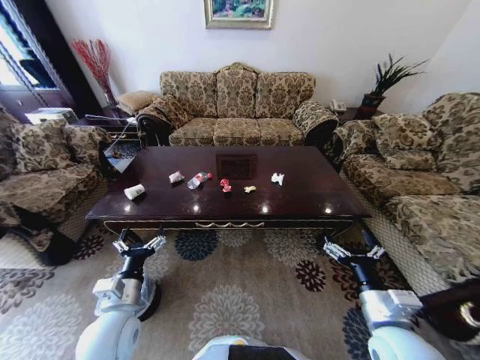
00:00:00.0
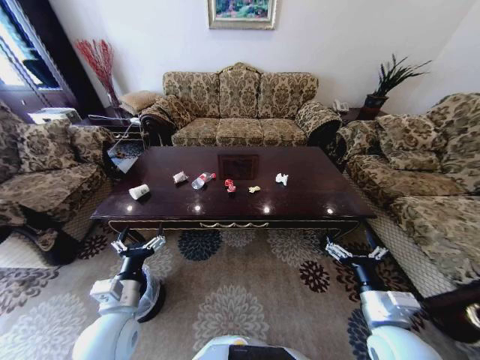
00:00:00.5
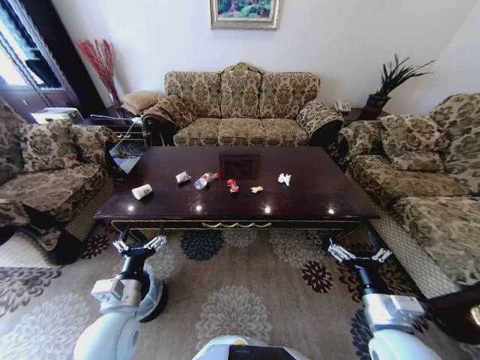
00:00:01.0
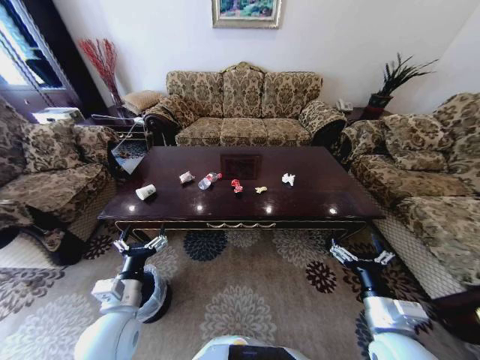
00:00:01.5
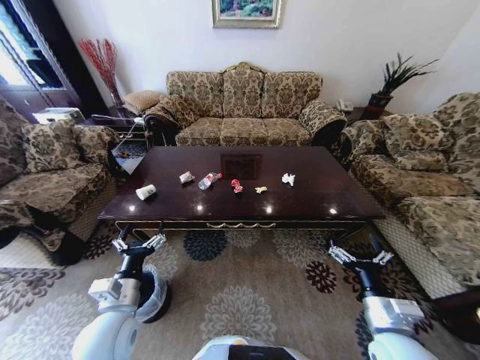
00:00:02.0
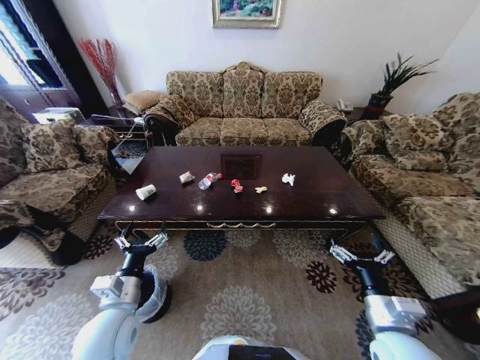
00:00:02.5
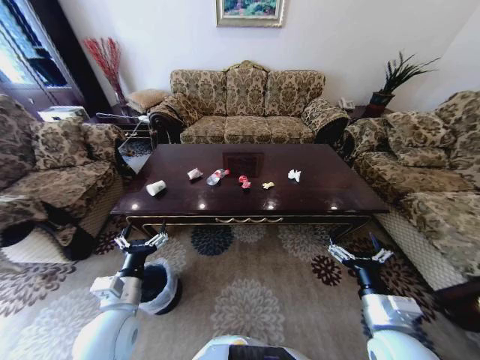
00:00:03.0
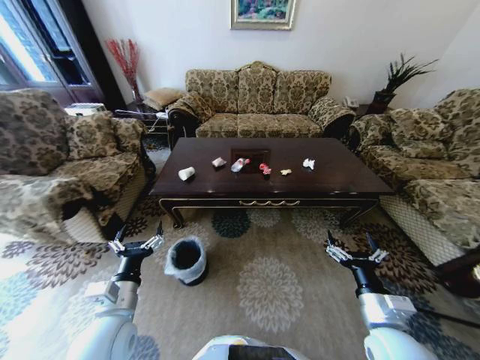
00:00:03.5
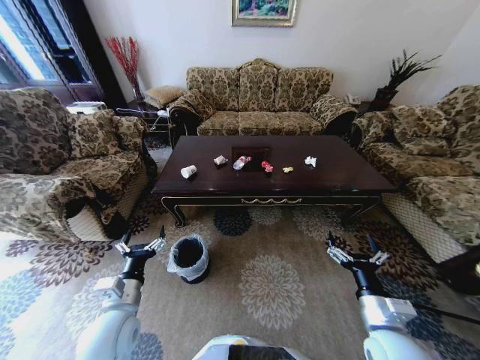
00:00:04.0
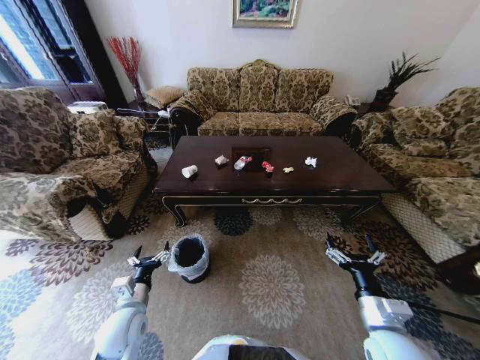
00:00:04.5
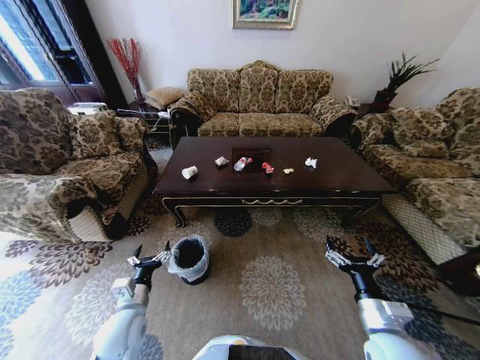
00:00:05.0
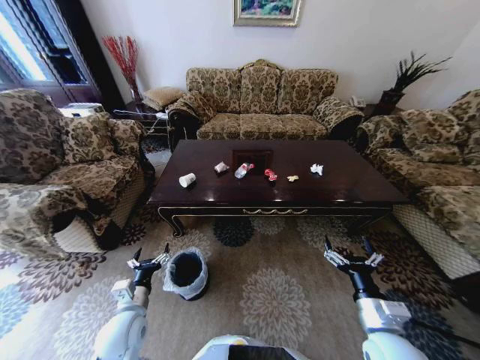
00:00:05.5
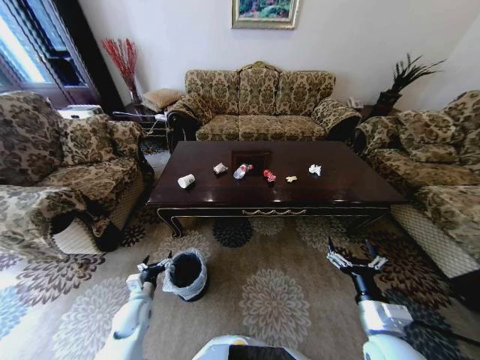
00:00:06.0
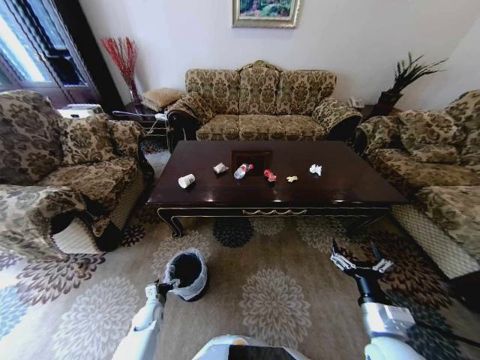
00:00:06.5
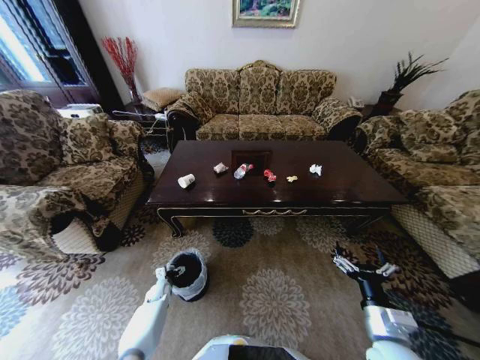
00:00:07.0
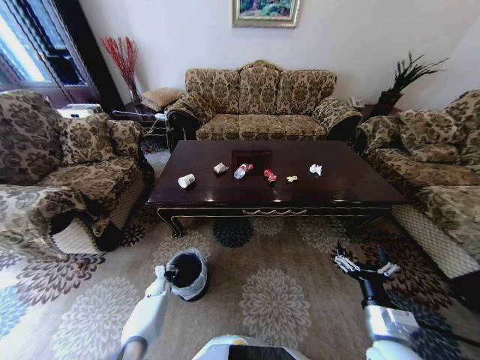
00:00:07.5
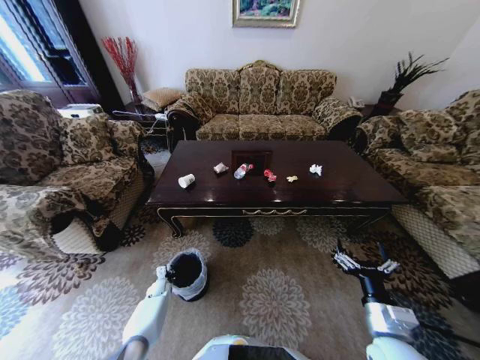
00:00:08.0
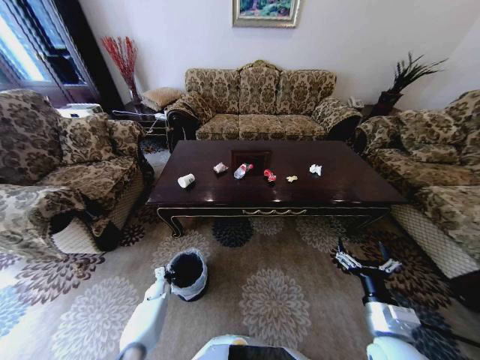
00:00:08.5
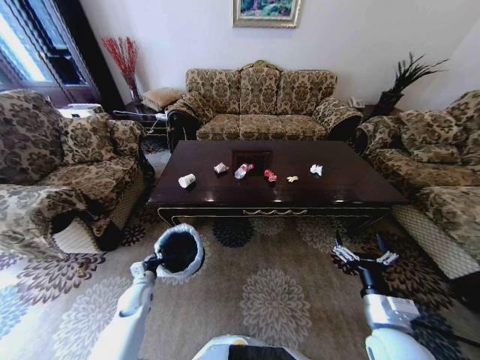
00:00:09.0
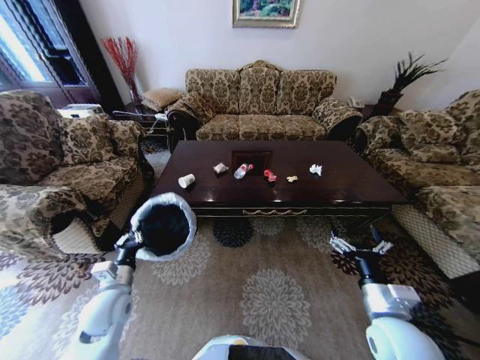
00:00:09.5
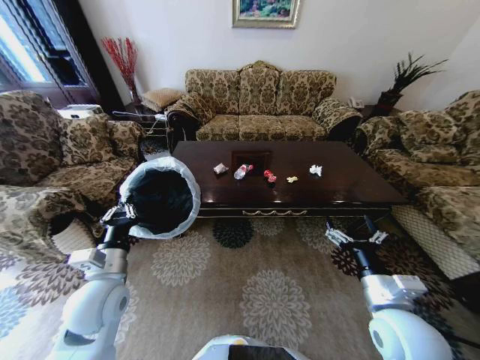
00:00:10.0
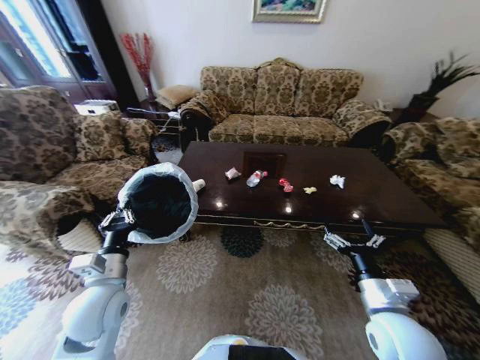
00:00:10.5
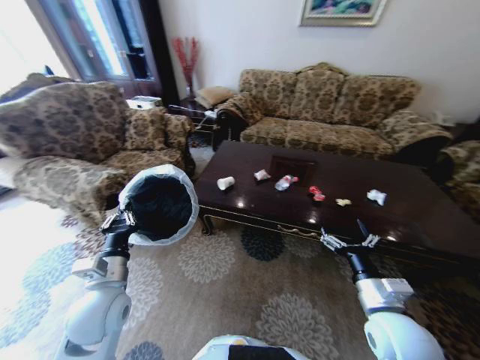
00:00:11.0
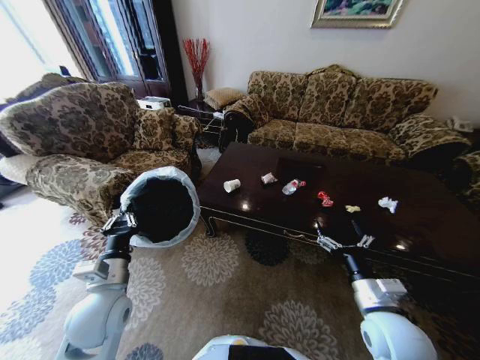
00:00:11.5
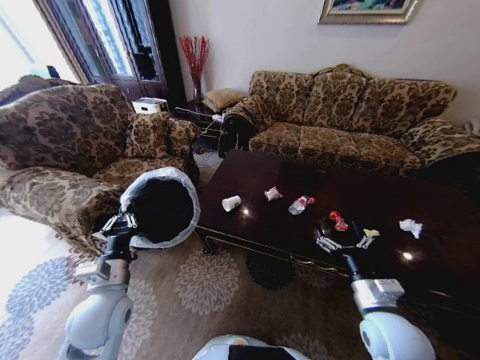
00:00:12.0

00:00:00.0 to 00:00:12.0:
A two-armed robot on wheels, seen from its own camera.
Task of the whole recording: Move to the front of the table and place the trash on the table into the trash bin.
00:00:04.0 to 00:00:06.0: The left gripper shifts some 15 cm downward.
00:00:06.0 to 00:00:08.0: The left gripper heads downward and forward, covering about 20 cm, and closes up.
00:00:08.0 to 00:00:10.0: The right gripper moves upward, approximately 5 cm; the left gripper shifts approximately 40 cm upward.

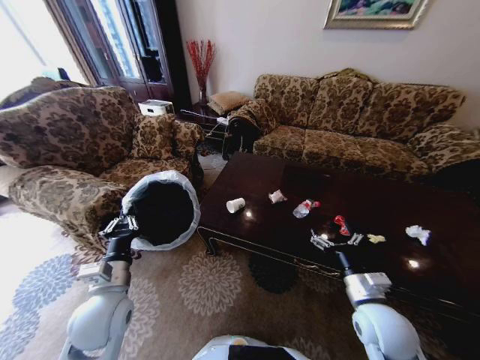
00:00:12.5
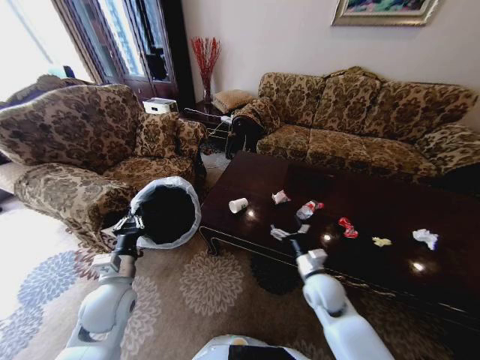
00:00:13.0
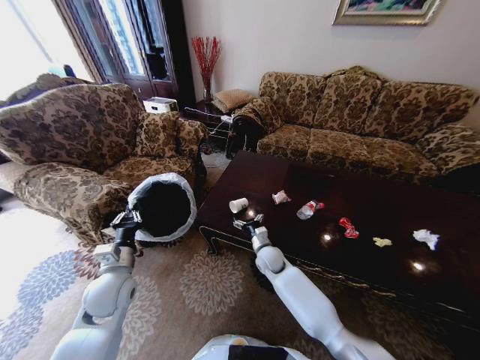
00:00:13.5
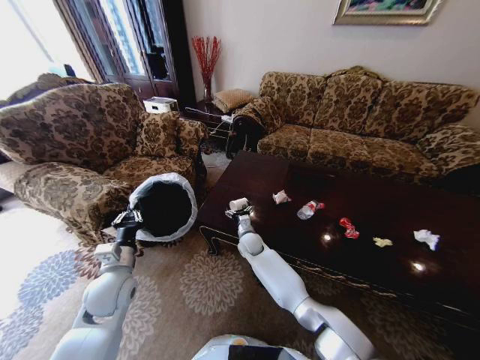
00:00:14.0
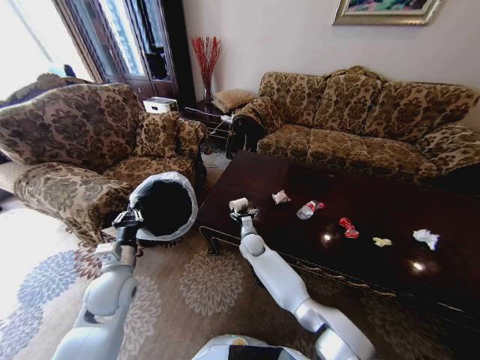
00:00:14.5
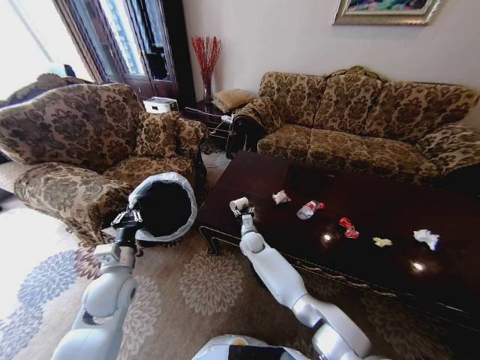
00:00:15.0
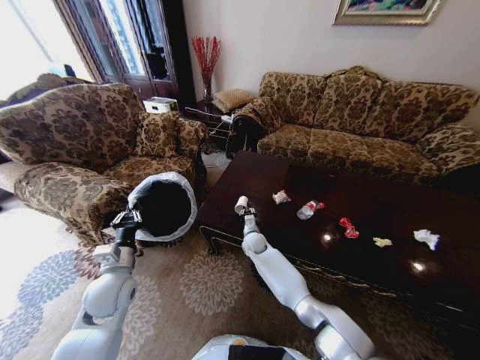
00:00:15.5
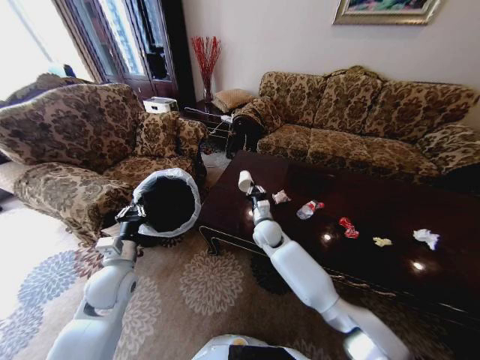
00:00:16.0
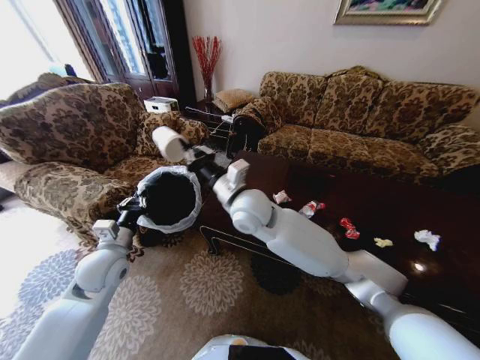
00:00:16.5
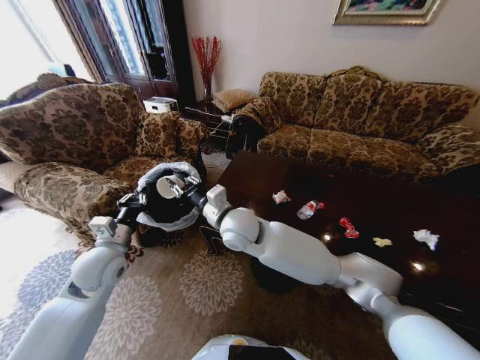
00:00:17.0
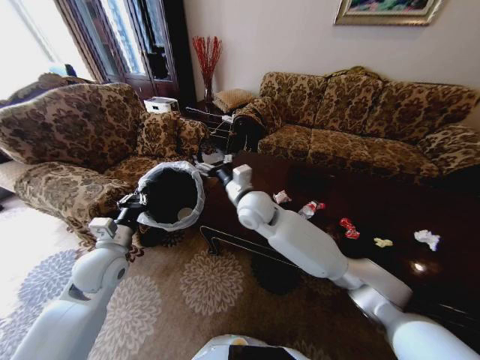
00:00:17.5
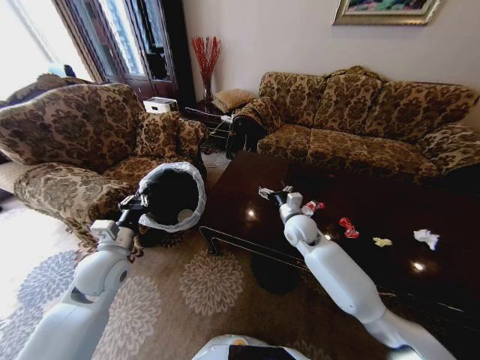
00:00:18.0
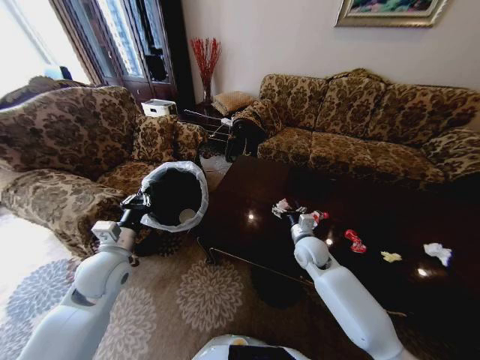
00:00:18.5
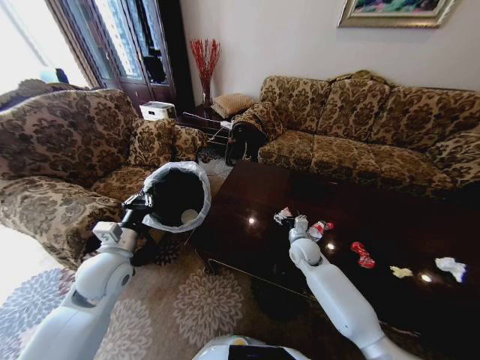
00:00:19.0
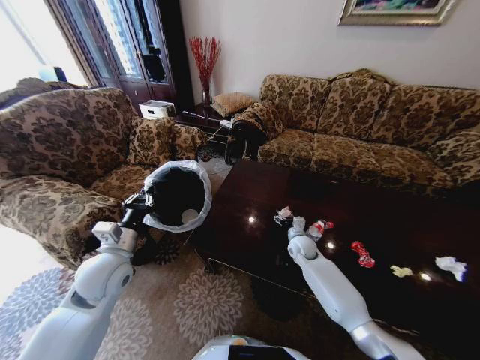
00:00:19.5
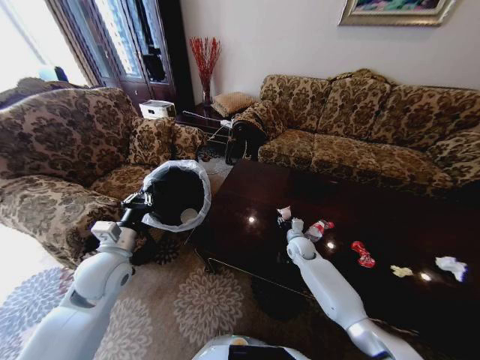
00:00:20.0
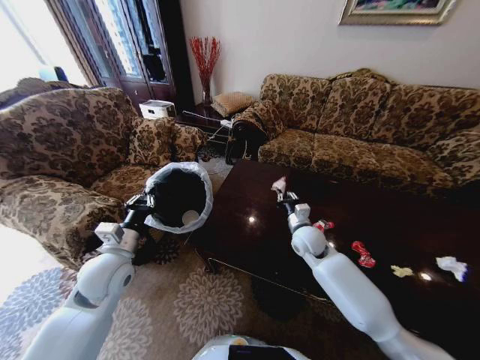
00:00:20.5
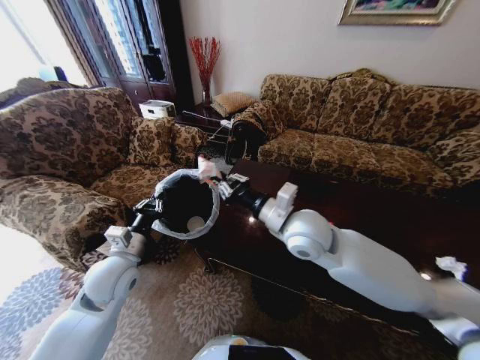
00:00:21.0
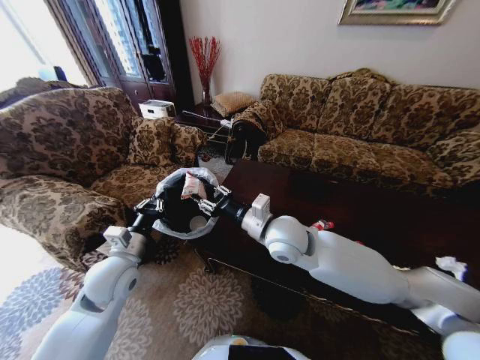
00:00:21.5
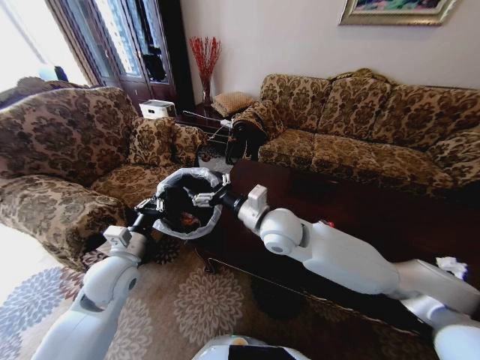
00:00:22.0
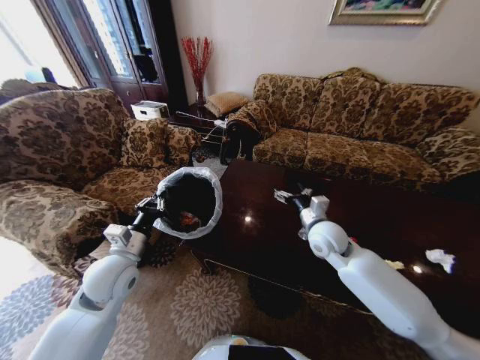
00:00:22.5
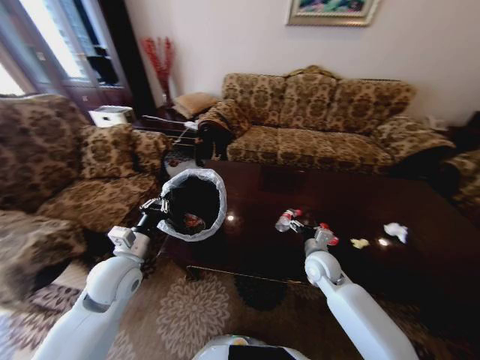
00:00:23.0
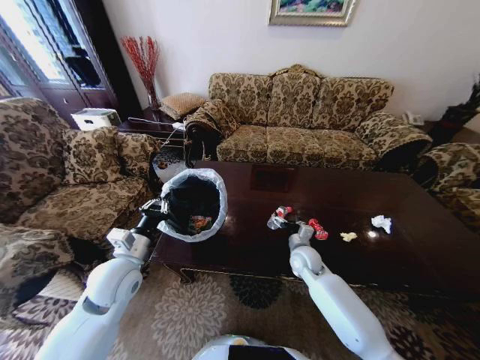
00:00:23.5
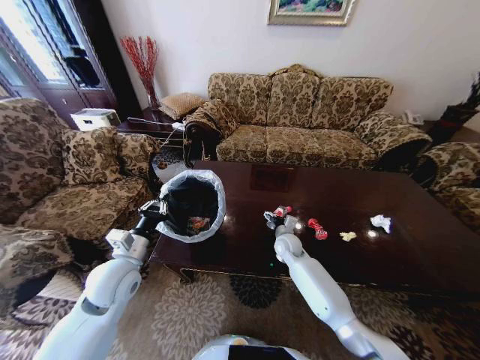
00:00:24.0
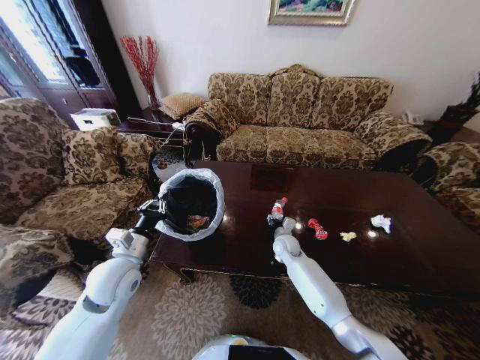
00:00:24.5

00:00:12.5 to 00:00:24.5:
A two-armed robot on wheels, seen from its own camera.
Task of the whole recording: Move to the front of the table and place the trash on the table into the trash bin.
00:00:12.5 to 00:00:14.5: The left gripper shifts some 5 cm forward, while the right gripper heads forward, to the left and downward, covering roughly 40 cm.
00:00:14.5 to 00:00:16.5: The left gripper moves some 5 cm. The right gripper travels upward by about 30 cm, and closes its fingers.
00:00:16.5 to 00:00:18.5: The right gripper heads to the right and downward, covering about 30 cm, and opens up.
00:00:18.5 to 00:00:20.5: The right gripper reaches roughly 10 cm downward, then returns, and closes.
00:00:20.5 to 00:00:22.5: The right gripper travels to the left and back again, some 10 cm each way, and opens up.
00:00:22.5 to 00:00:24.5: The right gripper shifts some 20 cm downward and forward, and closes its fingers.

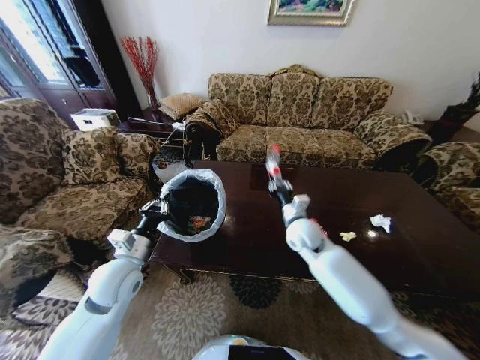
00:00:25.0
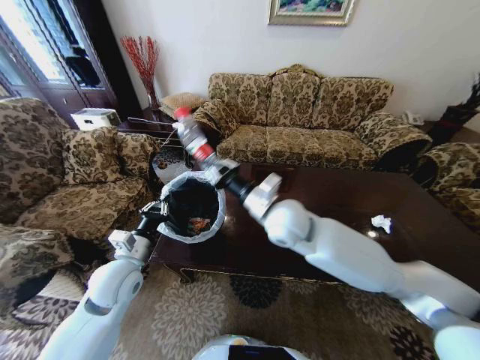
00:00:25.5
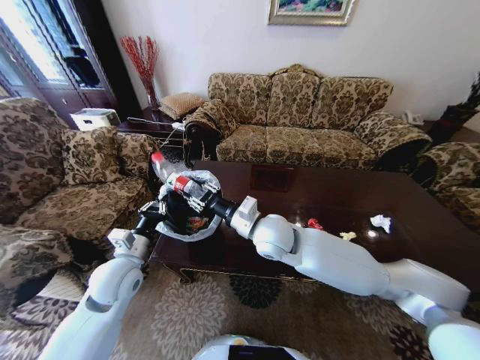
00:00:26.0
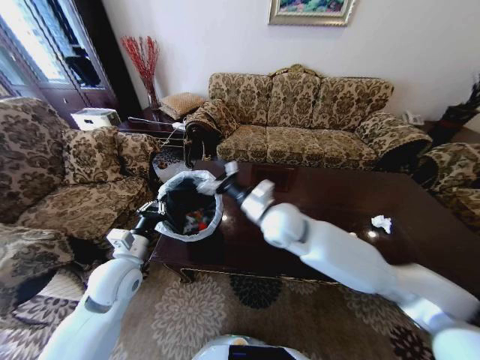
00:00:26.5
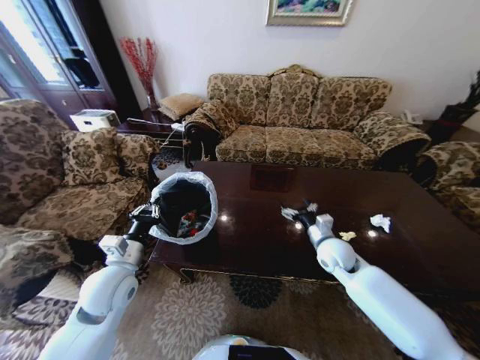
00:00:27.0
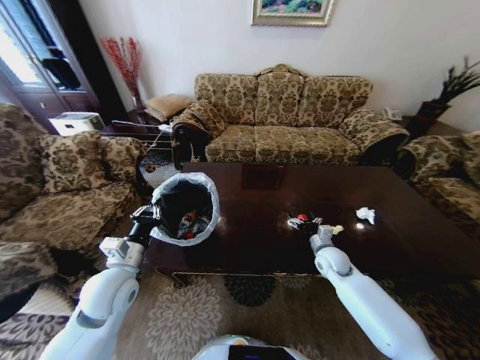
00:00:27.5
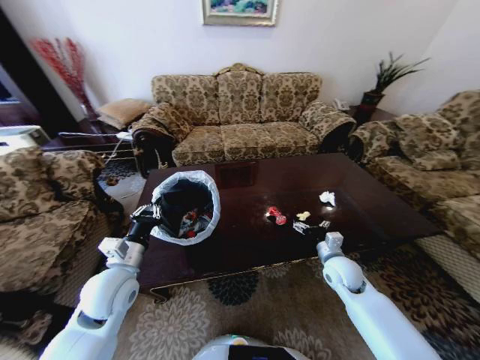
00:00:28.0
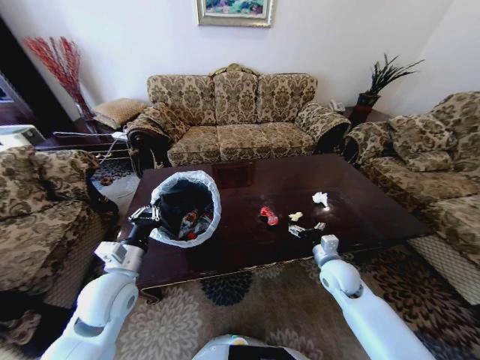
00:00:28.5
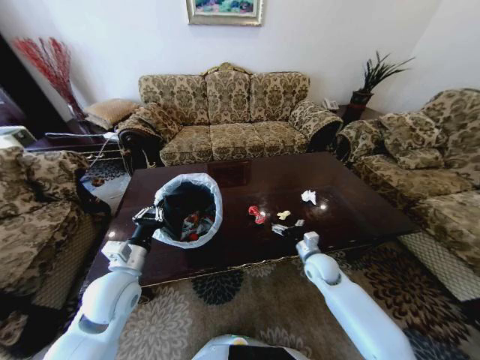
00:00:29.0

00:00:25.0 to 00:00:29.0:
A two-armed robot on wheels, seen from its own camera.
Task of the whole recording: Move to the front of the table and place the trash on the table into the trash bin.
00:00:25.0 to 00:00:27.0: The right gripper heads to the right, covering about 10 cm, and opens up.
00:00:27.0 to 00:00:29.0: The right gripper heads downward, covering roughly 10 cm.
